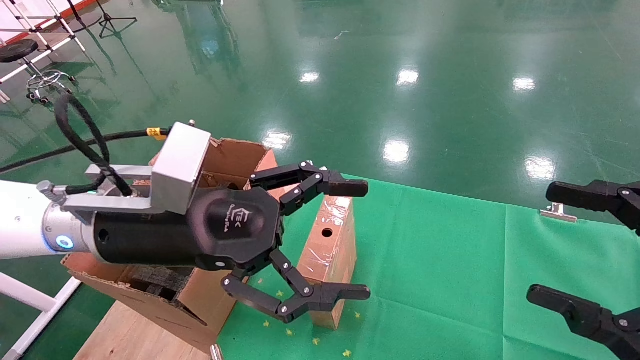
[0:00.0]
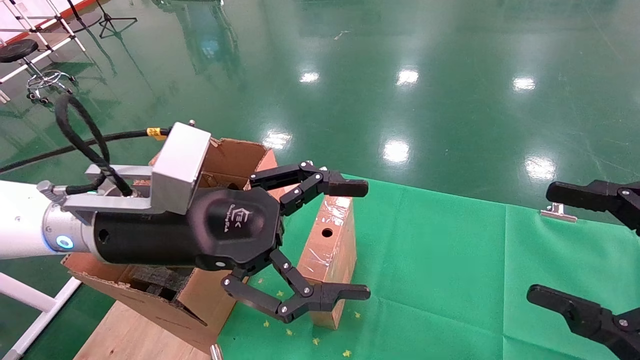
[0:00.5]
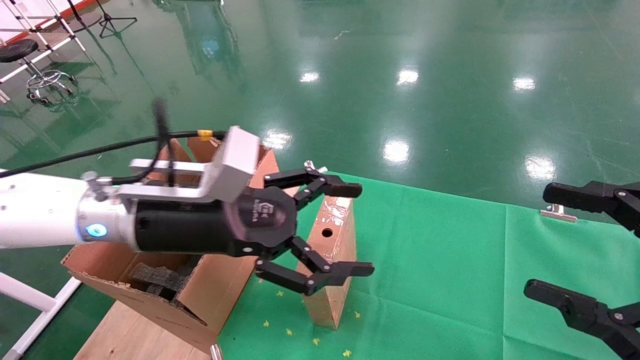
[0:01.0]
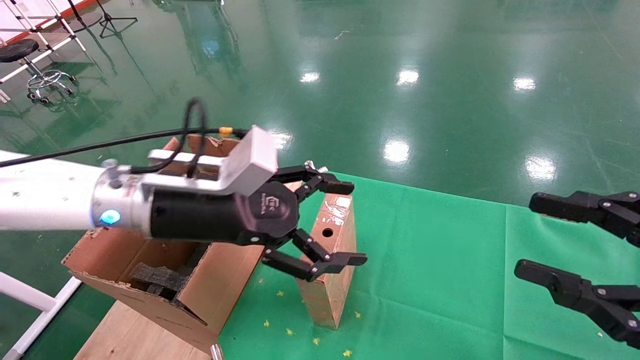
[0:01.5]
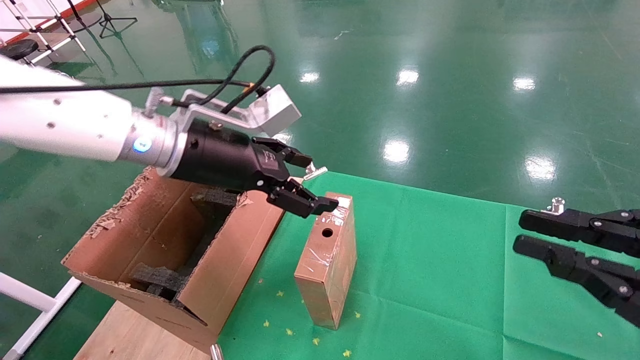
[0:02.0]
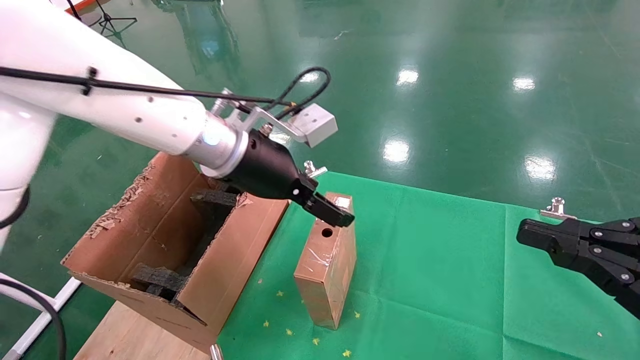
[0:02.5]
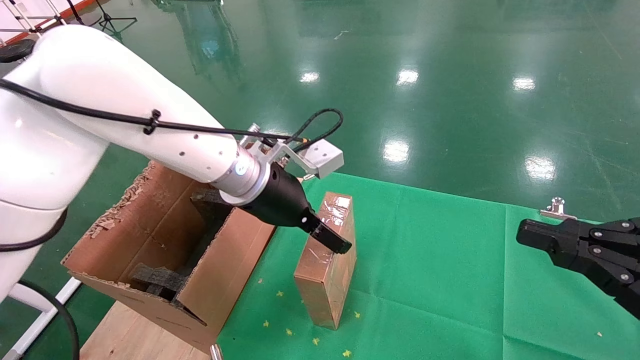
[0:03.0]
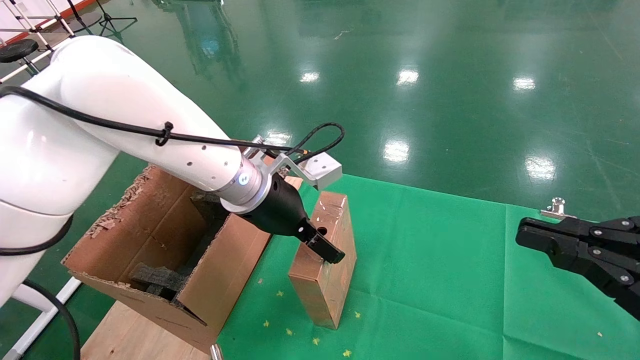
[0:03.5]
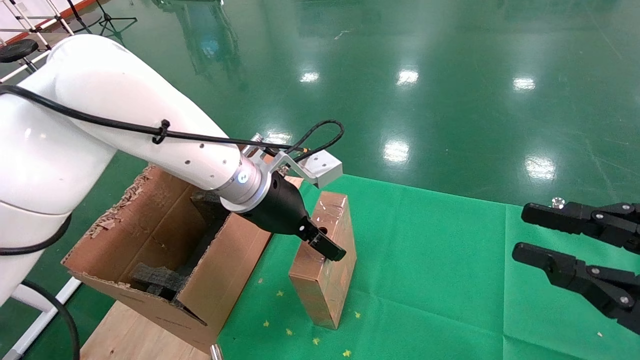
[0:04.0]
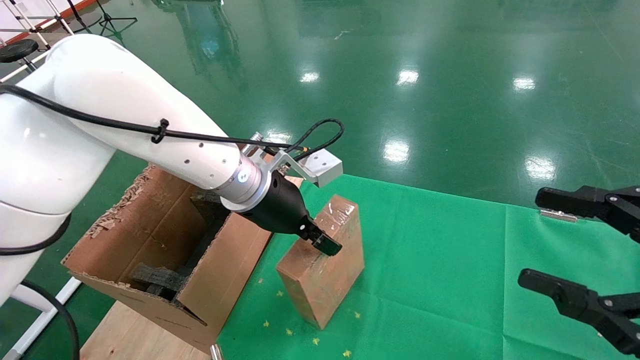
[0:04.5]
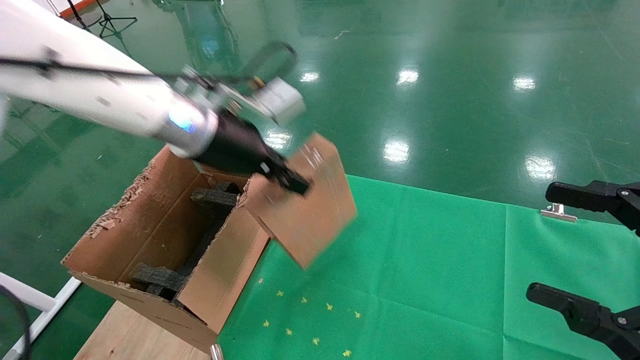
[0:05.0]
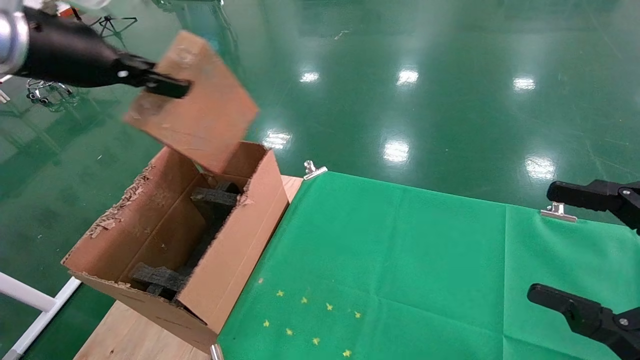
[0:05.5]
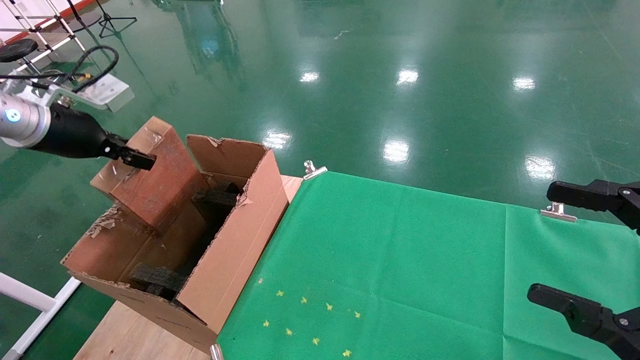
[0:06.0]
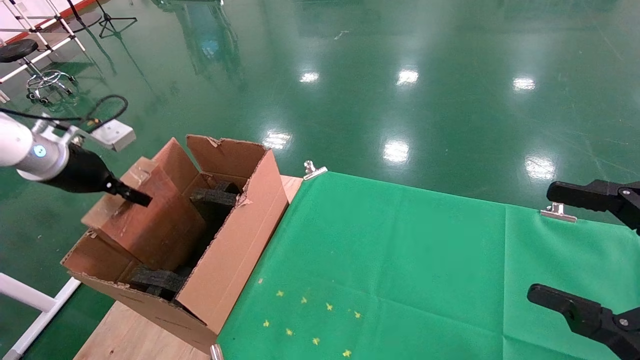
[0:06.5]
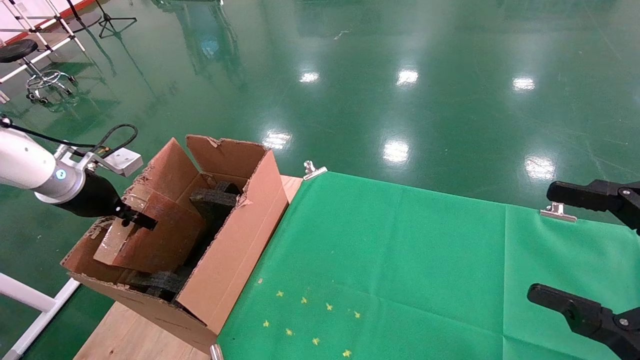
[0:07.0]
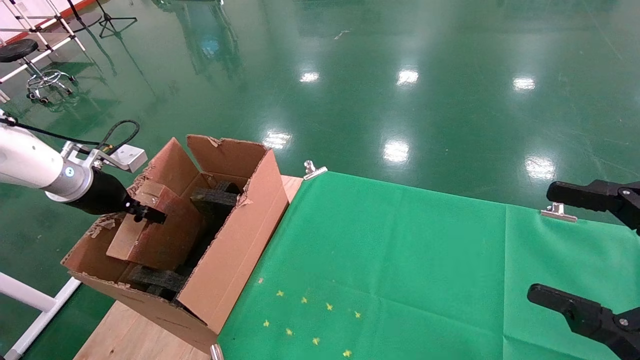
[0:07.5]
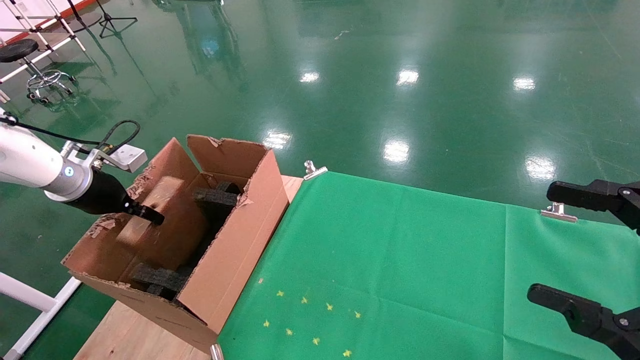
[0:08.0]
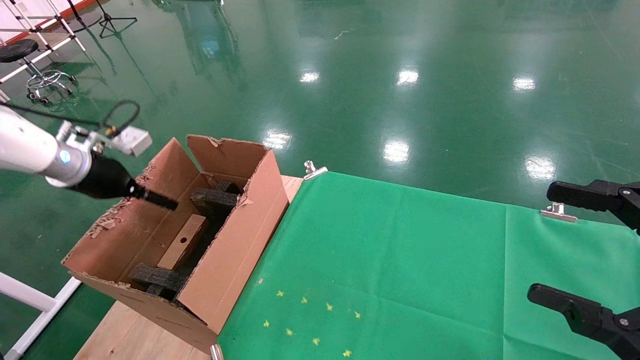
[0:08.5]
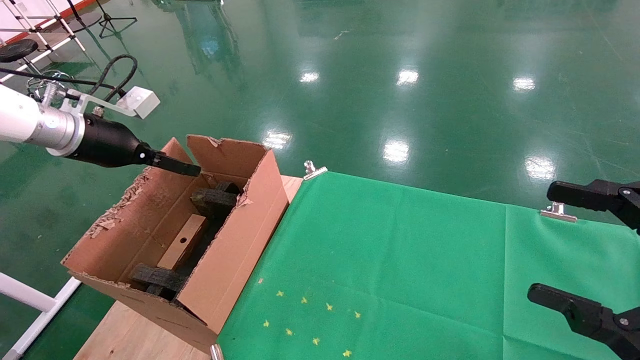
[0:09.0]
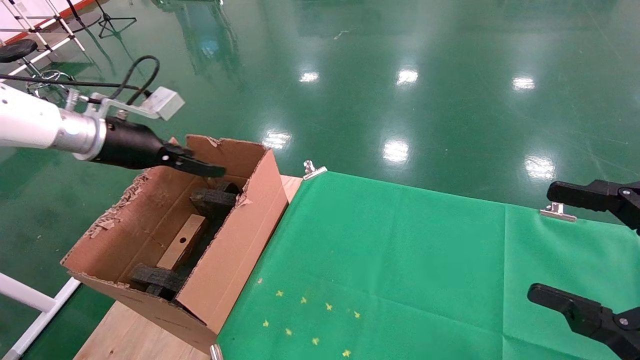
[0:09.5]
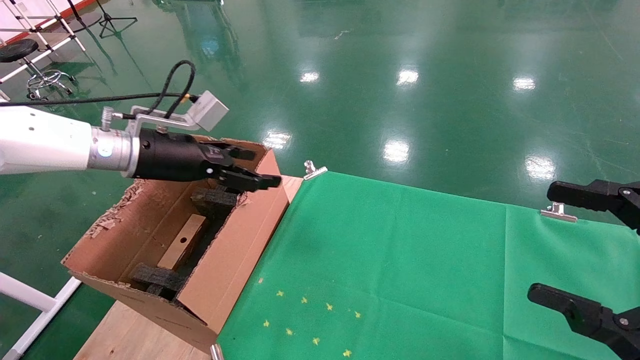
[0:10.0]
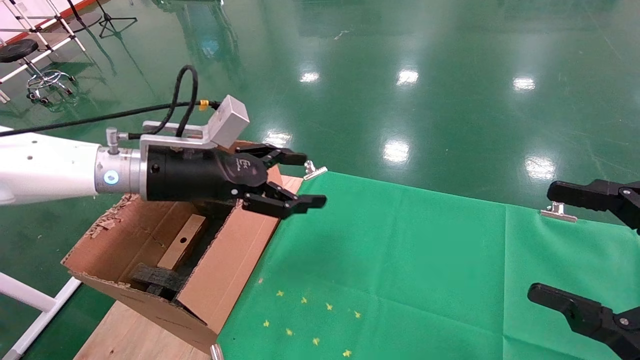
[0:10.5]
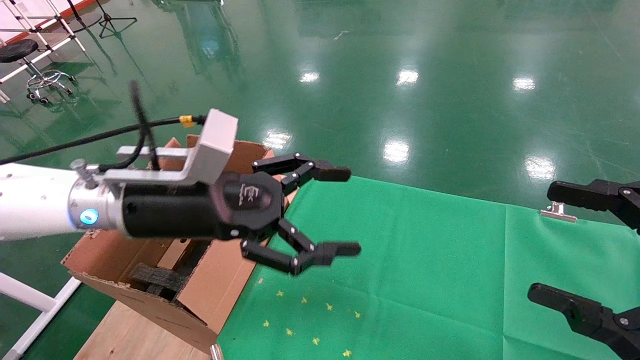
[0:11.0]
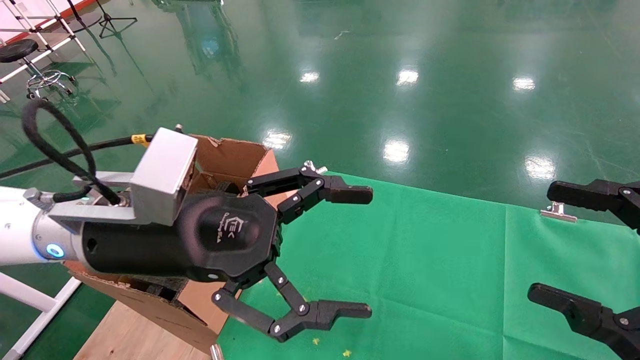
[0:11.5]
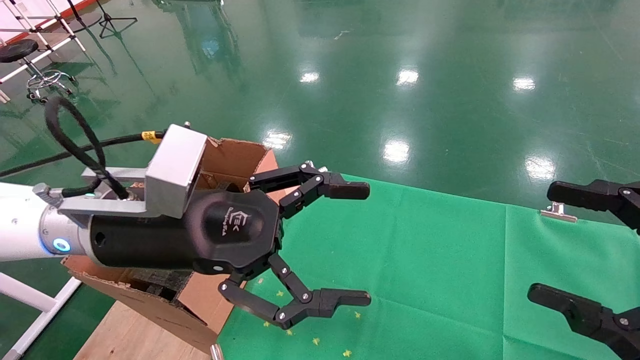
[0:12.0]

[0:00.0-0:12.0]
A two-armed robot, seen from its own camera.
Task of the whole recording: using a robotic arm to pick up a cardboard box and palace it the carton.
Step, 0:01.5 to 0:04.0: Pick up the mouse and the power cord paper box.
Step, 0:04.5 to 0:08.0: Place the mouse and the power cord paper box into the container.
0:00.0 to 0:02.0: The right gripper closes up. Meanwhile the left gripper moves forward, some 10 cm.
0:02.0 to 0:04.0: The left gripper is displaced to the right and downward by approximately 10 cm.
0:04.0 to 0:06.0: The left gripper moves to the left, about 30 cm, and closes up, while the right gripper opens up.
0:06.0 to 0:08.0: The left gripper goes about 10 cm downward.
0:08.0 to 0:10.0: The left gripper travels to the right by some 15 cm, and opens its fingers.
0:10.0 to 0:12.0: The left gripper goes about 20 cm backward and to the right.

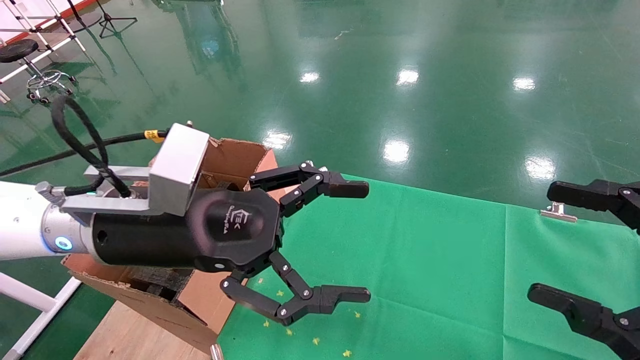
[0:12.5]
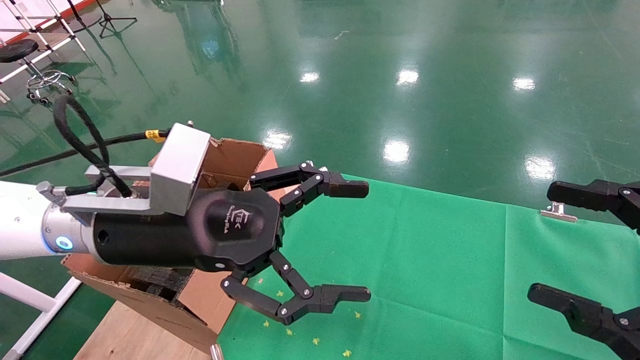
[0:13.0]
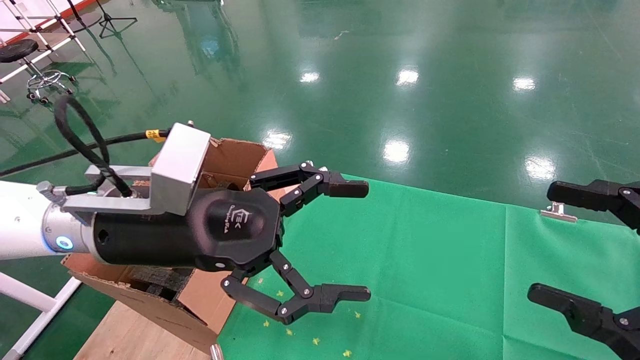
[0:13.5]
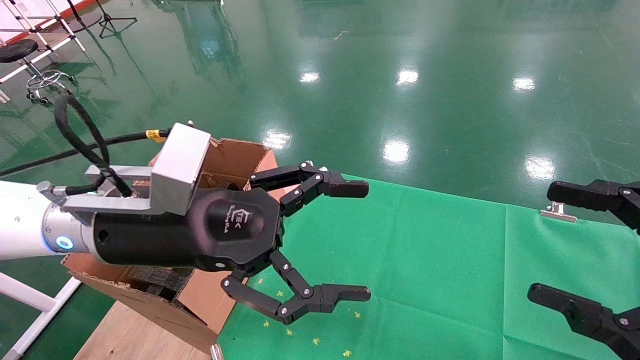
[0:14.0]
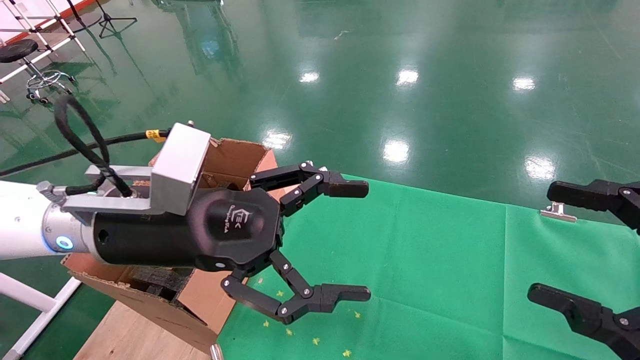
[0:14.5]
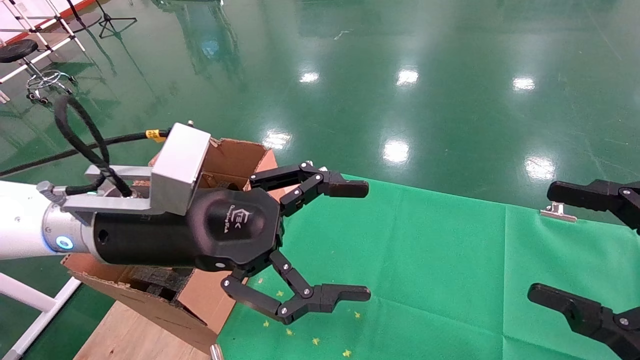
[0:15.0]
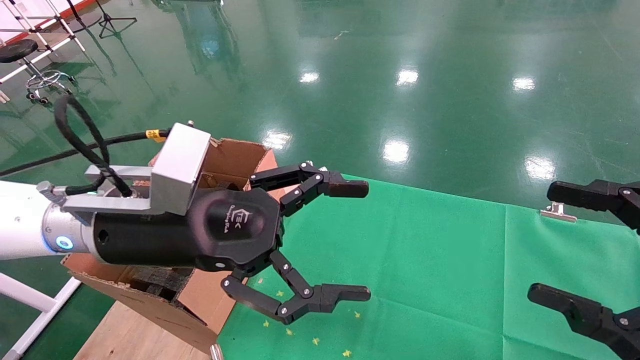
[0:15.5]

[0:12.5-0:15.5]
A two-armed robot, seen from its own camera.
Task of the whole recording: using a robotic arm to pick up a cardboard box and palace it the carton.
0:12.5 to 0:15.5: Both grippers stay put.
